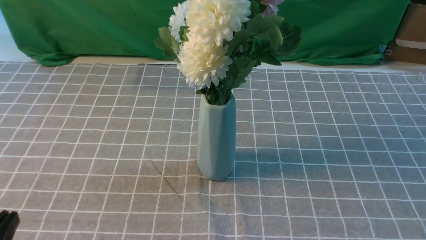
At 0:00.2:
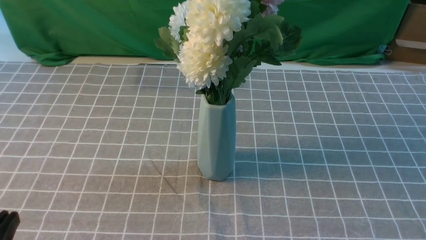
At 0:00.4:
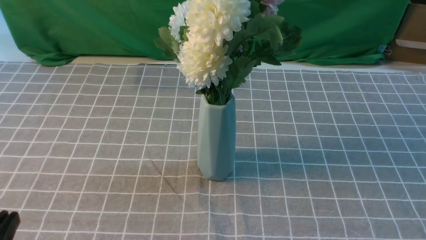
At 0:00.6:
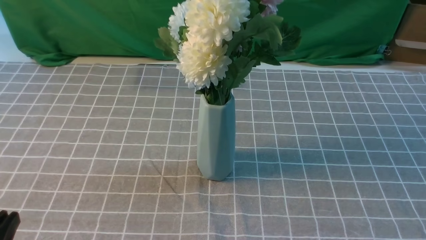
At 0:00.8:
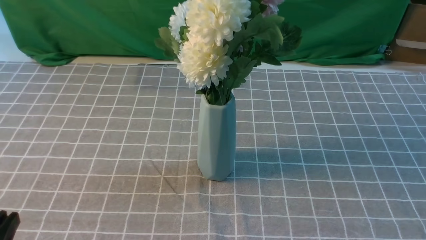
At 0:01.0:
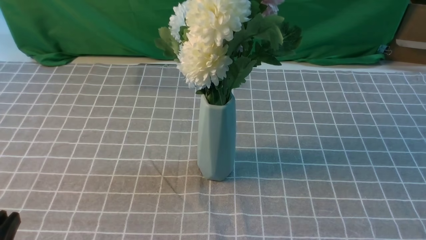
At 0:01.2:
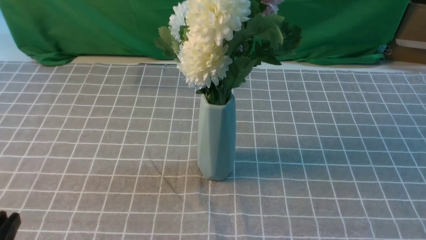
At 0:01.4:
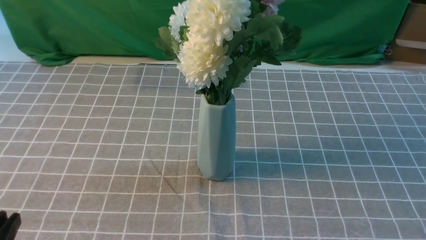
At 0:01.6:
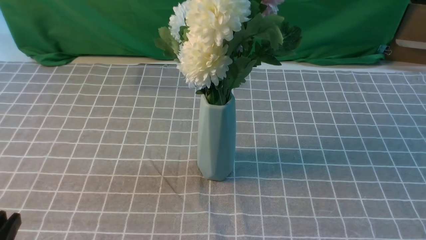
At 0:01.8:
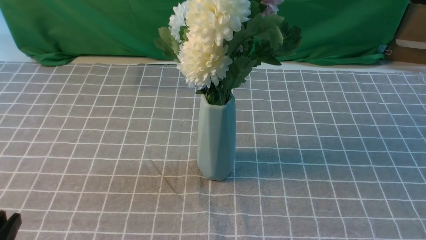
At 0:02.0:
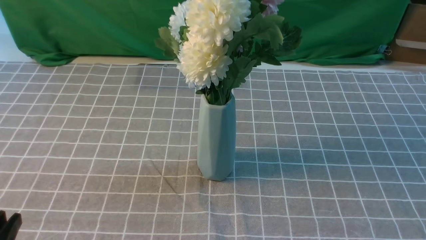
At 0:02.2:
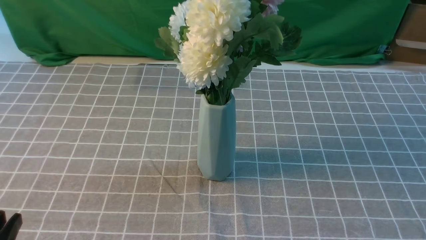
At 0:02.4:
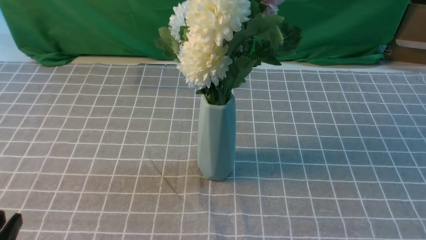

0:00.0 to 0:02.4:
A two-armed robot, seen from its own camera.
Task of the whole recording: insert the flowers into the vase on the table with the grey tablecloth.
0:01.2 to 0:02.4: Both grippers stay put.
